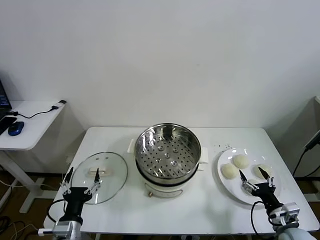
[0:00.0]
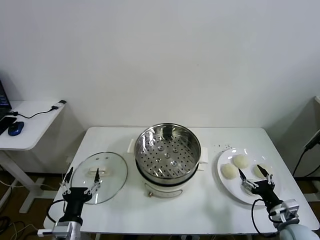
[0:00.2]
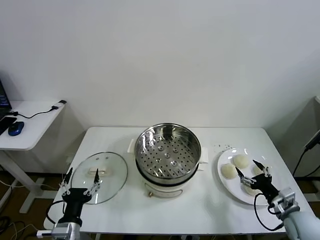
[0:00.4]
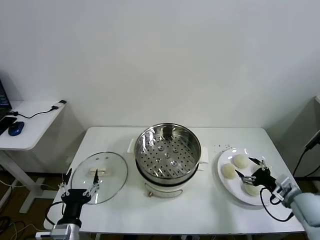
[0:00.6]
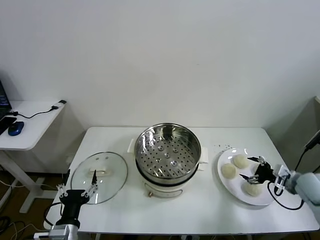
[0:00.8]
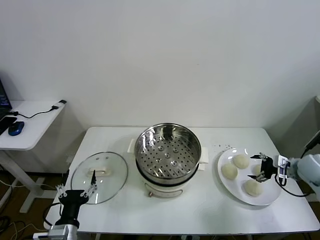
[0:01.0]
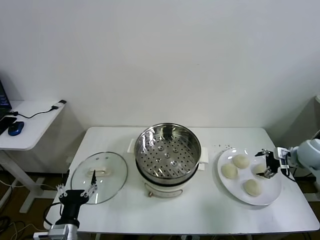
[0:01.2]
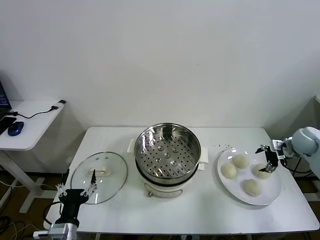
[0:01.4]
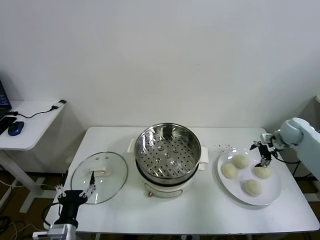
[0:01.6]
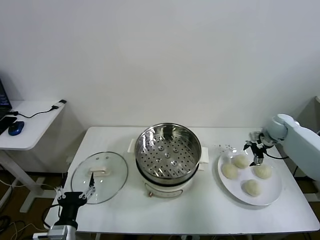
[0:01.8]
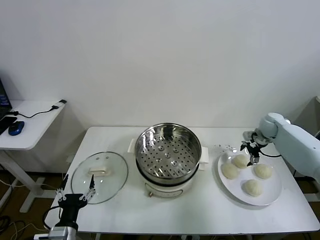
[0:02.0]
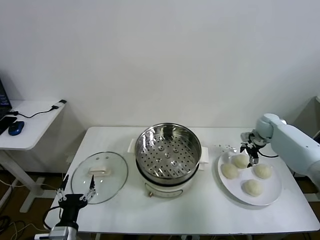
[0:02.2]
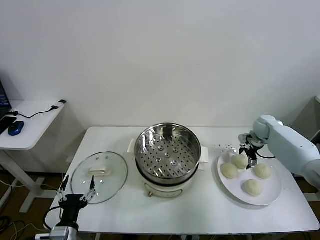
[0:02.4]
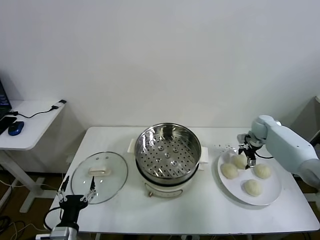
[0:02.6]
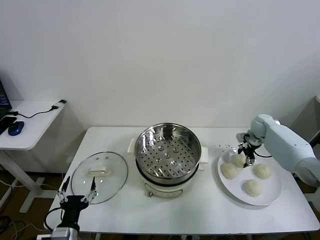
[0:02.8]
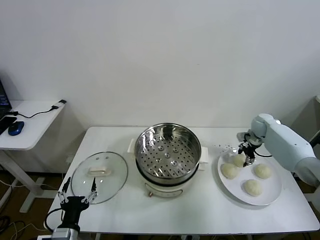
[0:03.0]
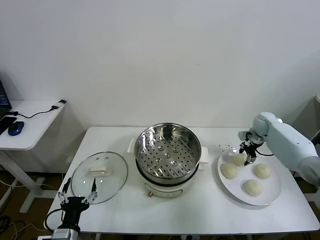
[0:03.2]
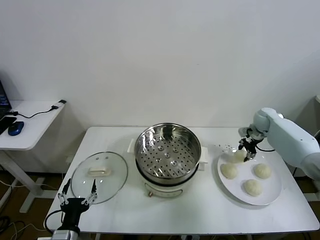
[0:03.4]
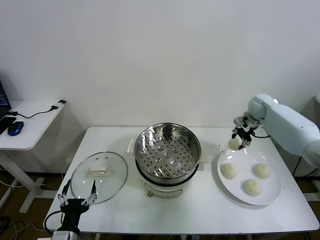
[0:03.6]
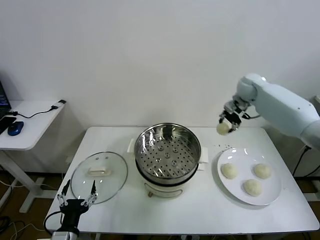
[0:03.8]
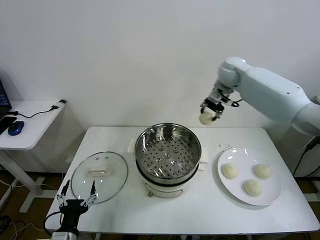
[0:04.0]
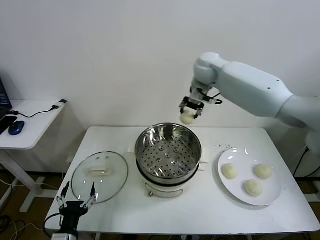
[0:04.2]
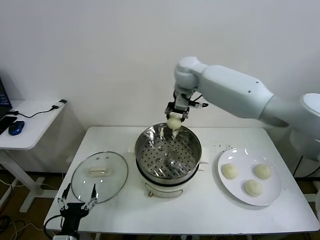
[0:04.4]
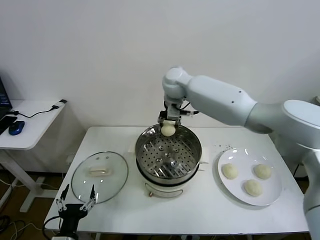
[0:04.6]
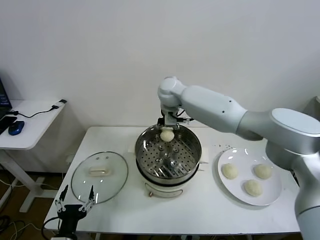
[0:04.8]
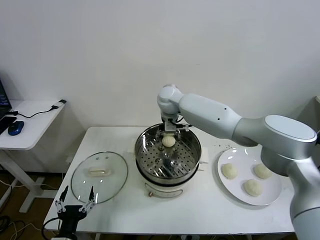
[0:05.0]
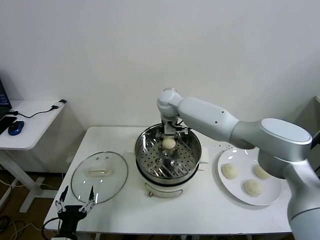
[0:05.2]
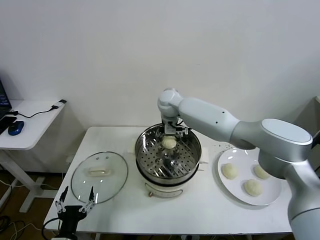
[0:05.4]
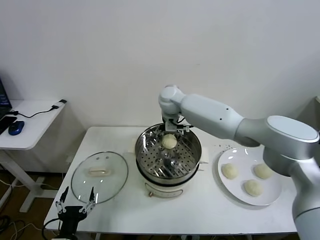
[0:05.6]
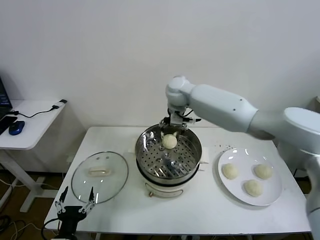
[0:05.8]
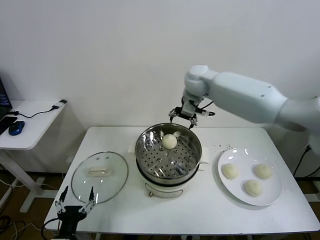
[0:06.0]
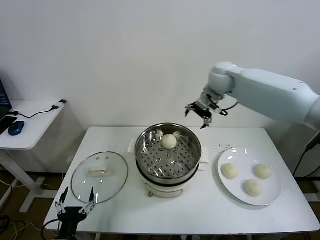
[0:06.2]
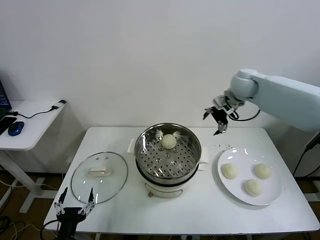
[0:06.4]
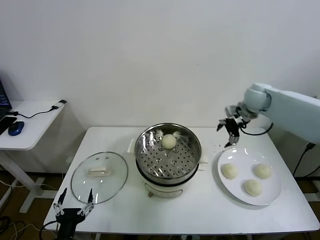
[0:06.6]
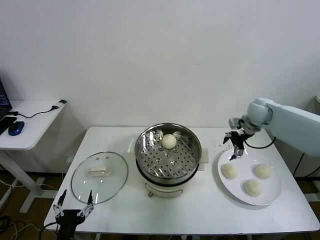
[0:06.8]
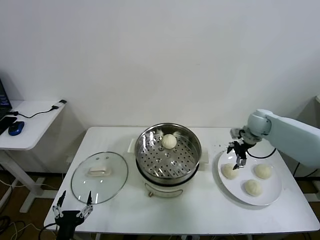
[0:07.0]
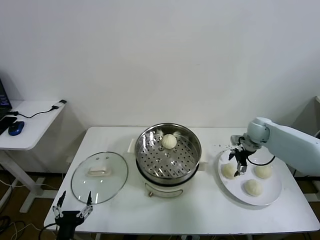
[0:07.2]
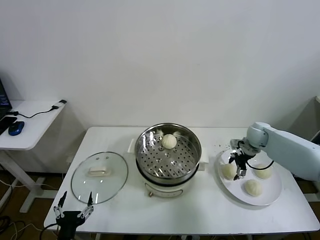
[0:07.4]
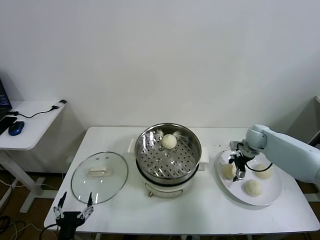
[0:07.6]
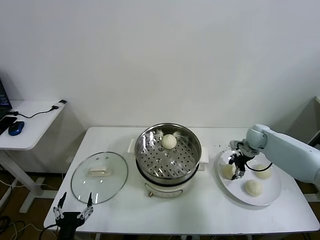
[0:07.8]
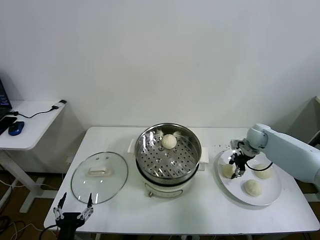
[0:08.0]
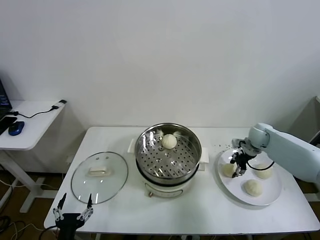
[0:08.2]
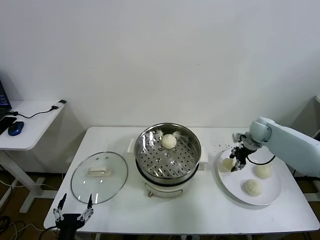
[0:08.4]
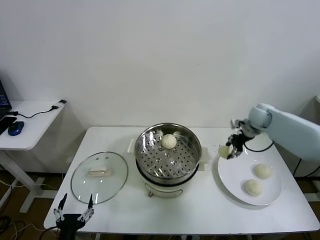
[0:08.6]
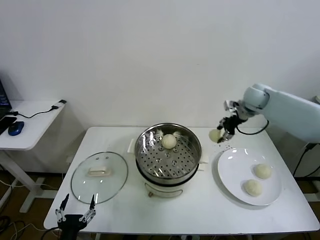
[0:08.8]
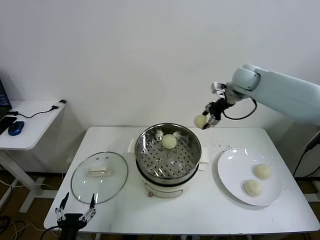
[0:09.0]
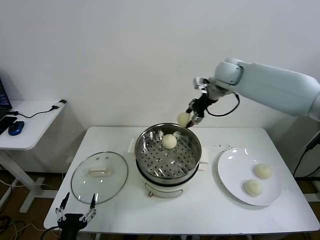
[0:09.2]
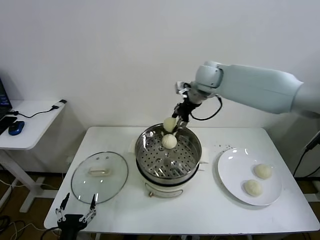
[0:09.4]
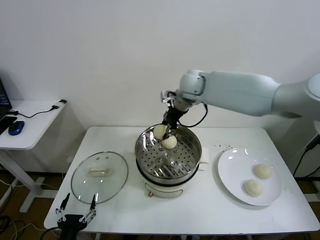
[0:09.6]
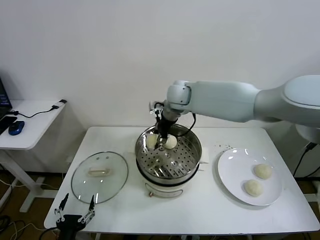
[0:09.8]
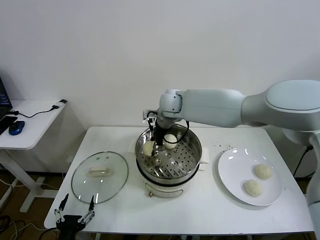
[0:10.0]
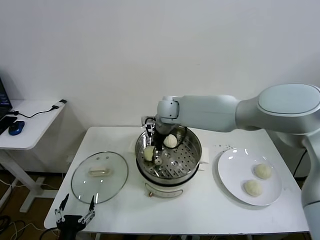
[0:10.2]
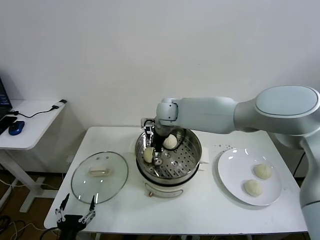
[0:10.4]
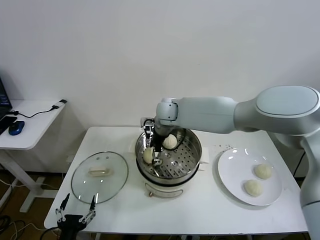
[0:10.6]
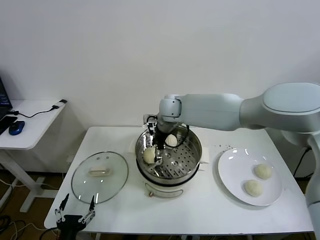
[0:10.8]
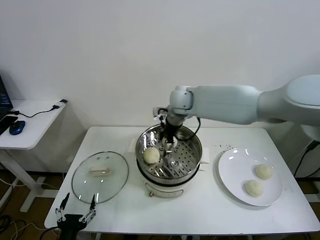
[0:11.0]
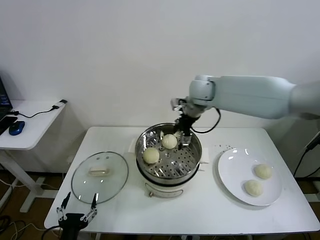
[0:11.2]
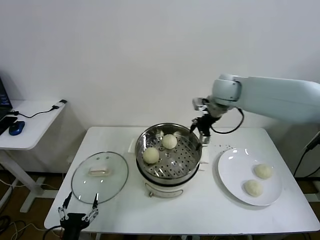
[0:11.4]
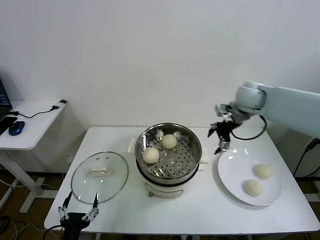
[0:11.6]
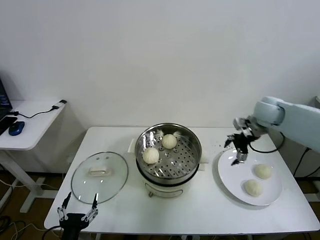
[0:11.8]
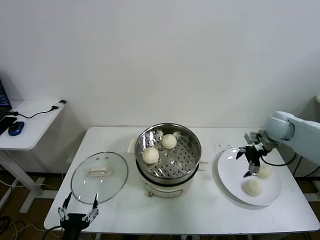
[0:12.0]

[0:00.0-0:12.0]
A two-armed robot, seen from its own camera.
Task of the whole recording: take steamed baozi put them in steamer.
Step, 0:00.0 to 0:02.8: Grasp the baozi in the plate with right gripper.
Step, 0:03.2 to 0:05.8: Place the baozi on the steamer with right gripper.
Step, 0:06.0 to 0:07.8: Grasp the baozi in the plate with right gripper.
Step, 0:08.0 to 0:10.8: Place the baozi on the steamer with right gripper.
0:01.6 to 0:03.0: The right gripper moves forward, about 5 cm, and closes its fingers.
0:03.0 to 0:04.4: The right gripper is displaced to the left and upward by some 40 cm.
0:04.4 to 0:06.0: The right gripper travels to the right by about 10 cm, and opens its fingers.
0:06.0 to 0:07.6: The right gripper goes about 35 cm downward and to the right.
0:07.6 to 0:09.0: The right gripper is displaced upward and to the left by approximately 30 cm, and closes.
0:09.0 to 0:10.4: The right gripper travels to the left and downward by about 25 cm, and opens its fingers.
0:10.4 to 0:12.0: The right gripper shifts some 40 cm to the right, and opens its fingers.

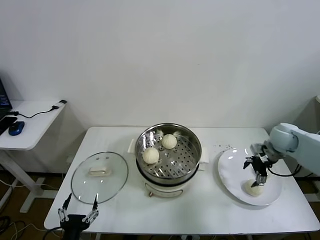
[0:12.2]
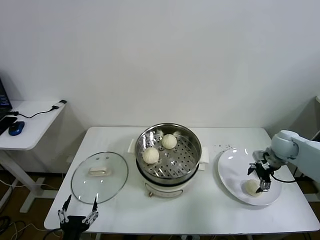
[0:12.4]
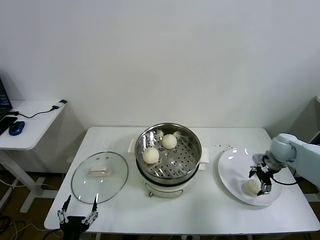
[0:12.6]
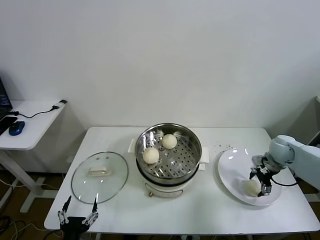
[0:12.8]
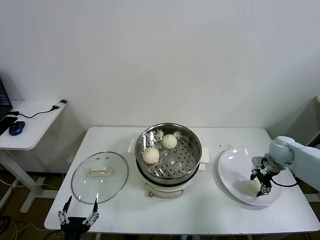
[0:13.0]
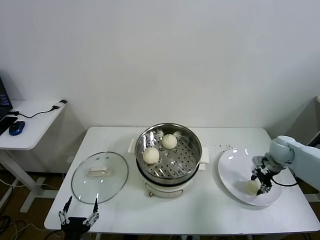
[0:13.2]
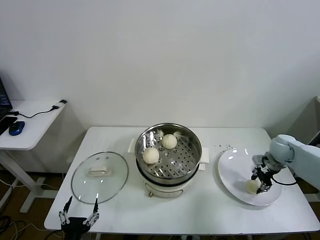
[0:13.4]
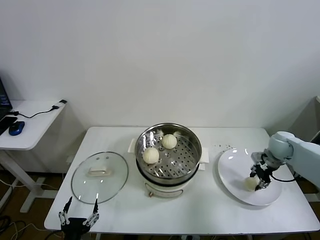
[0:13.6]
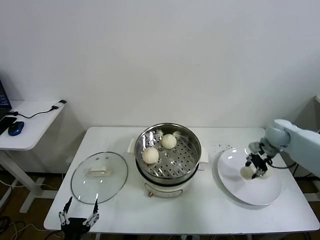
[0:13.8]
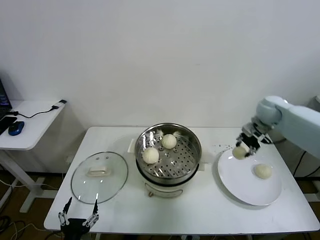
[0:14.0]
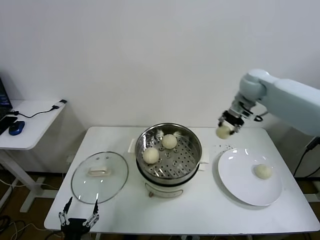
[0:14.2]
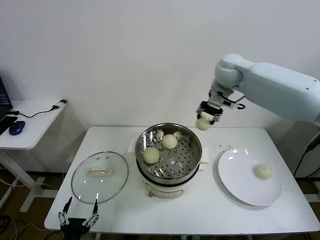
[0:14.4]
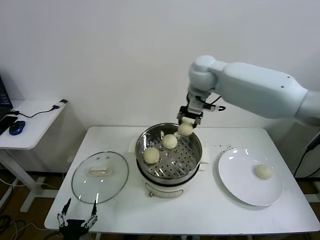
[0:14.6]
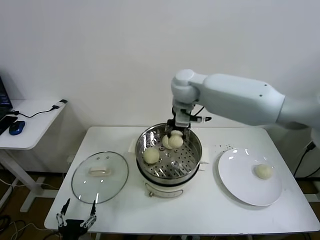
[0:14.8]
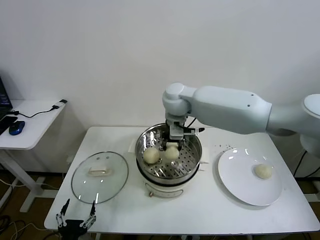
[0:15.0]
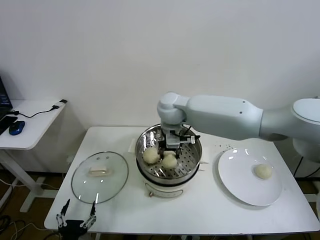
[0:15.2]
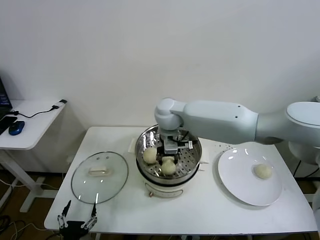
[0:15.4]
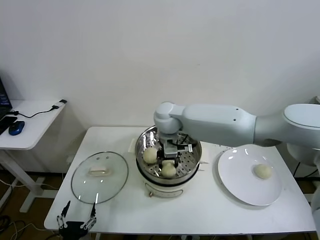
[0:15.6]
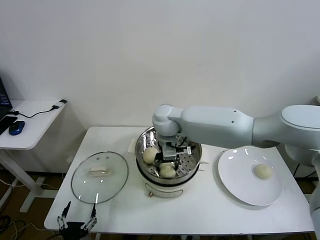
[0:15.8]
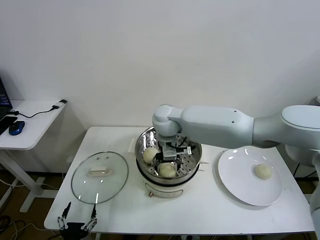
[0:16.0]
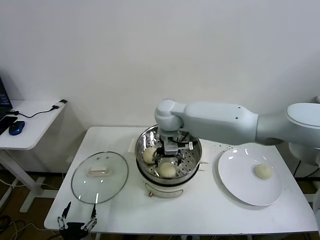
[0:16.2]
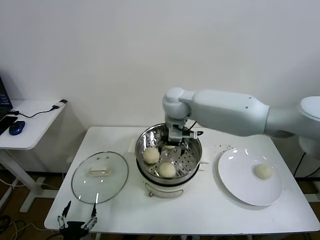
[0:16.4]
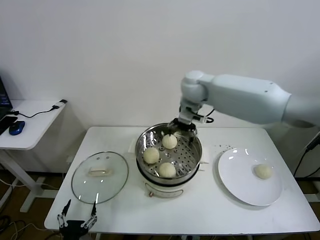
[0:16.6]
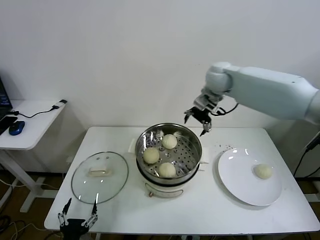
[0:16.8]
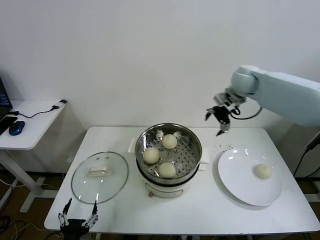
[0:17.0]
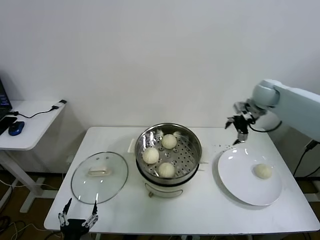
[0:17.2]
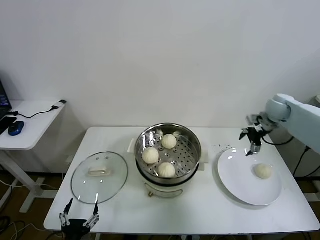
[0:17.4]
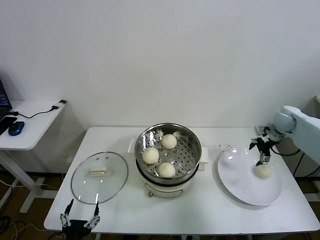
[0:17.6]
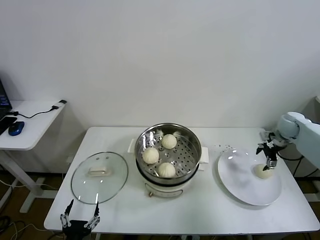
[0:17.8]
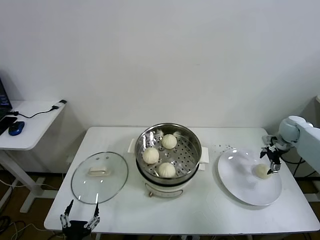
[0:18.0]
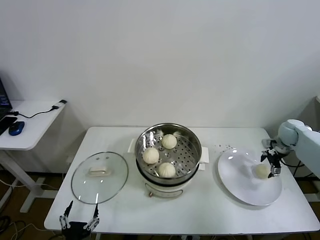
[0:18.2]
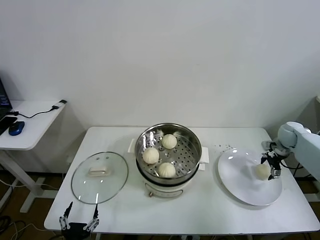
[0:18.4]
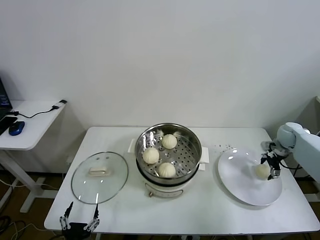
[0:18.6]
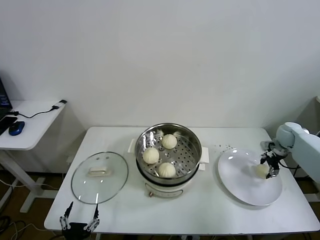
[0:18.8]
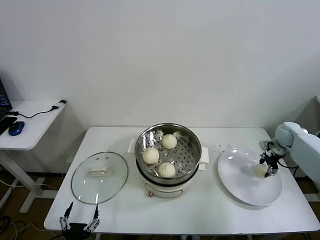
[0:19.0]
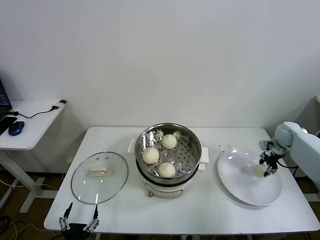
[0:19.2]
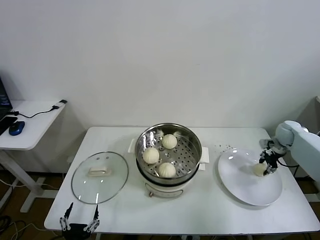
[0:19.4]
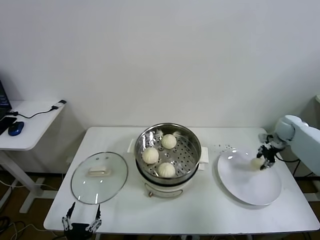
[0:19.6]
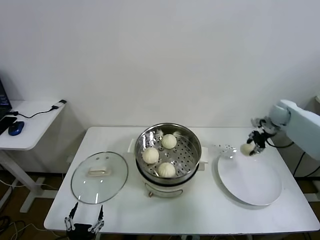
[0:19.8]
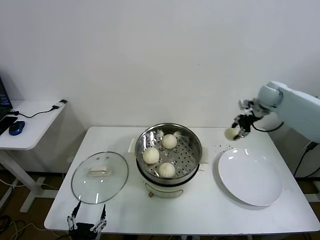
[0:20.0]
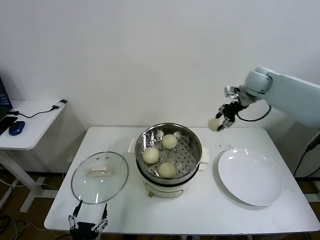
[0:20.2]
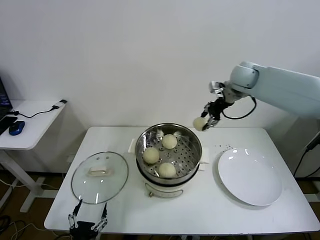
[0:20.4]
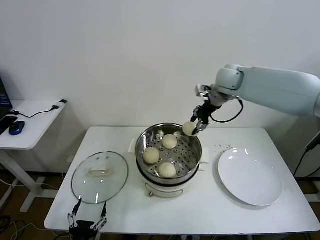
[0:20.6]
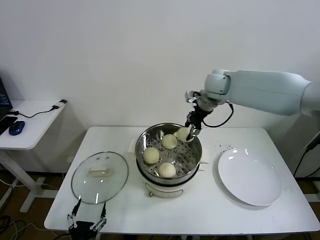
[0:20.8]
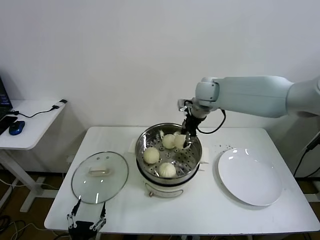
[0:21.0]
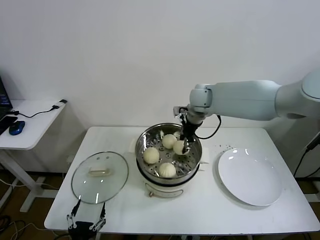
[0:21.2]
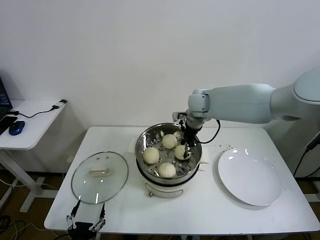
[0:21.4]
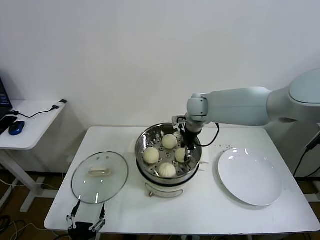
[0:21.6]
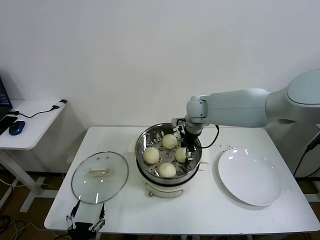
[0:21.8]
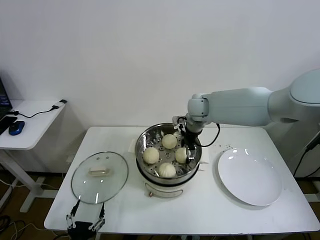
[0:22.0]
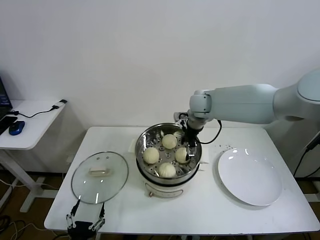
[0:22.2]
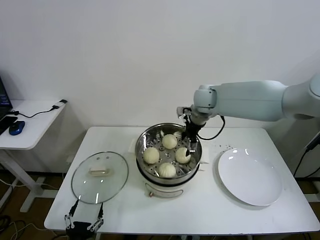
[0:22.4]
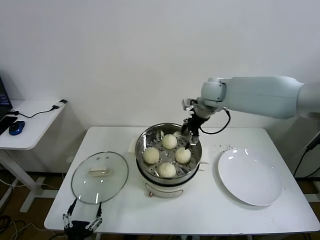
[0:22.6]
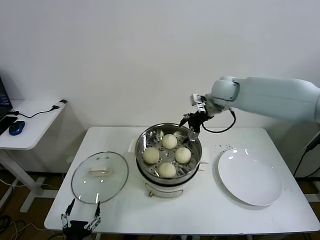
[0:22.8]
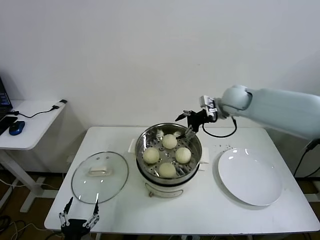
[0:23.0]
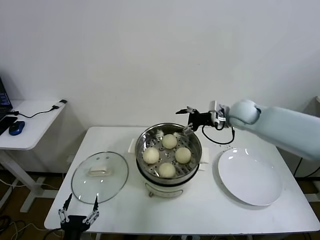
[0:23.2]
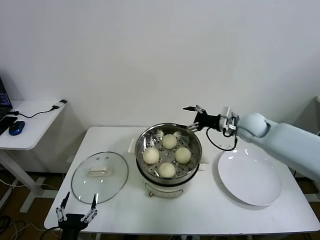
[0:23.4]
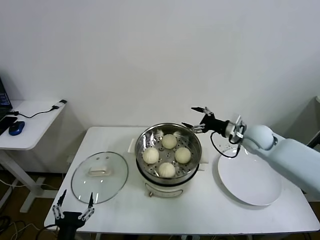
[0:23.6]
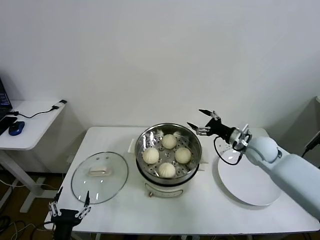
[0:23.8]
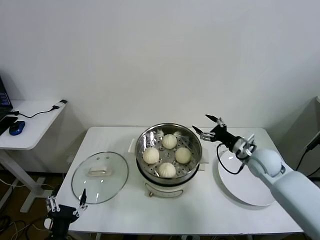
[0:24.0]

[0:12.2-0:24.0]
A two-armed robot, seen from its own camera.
Task of the whole recording: take steamed baozi put them in steamer.
Step, 0:13.2 to 0:16.2: Place the baozi on the steamer with right gripper.
Step, 0:16.4 to 0:19.0: Grasp the baozi in the plate with right gripper.
Step, 0:19.2 to 0:22.6: Place the baozi on the steamer with right gripper.
0:12.2 to 0:13.6: The right gripper closes up.
0:13.6 to 0:15.2: The right gripper goes about 40 cm to the left.
0:15.2 to 0:16.6: The right gripper heads to the right, upward and forward, covering roughly 15 cm, and opens.
0:16.6 to 0:18.2: The right gripper moves to the right and downward, some 40 cm.
0:18.2 to 0:19.6: The right gripper closes up.
0:19.6 to 0:21.0: The right gripper heads to the left and upward, covering roughly 35 cm.
0:21.0 to 0:22.6: The right gripper opens its fingers.
0:22.6 to 0:24.0: The right gripper heads downward, backward and to the right, covering some 30 cm; the left gripper shifts approximately 5 cm upward.
